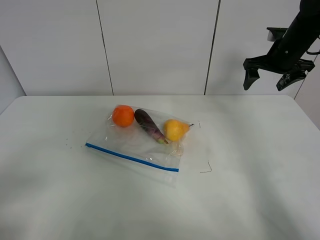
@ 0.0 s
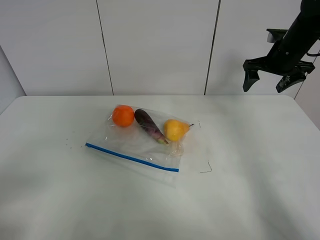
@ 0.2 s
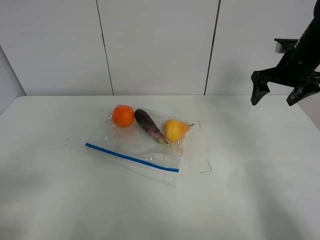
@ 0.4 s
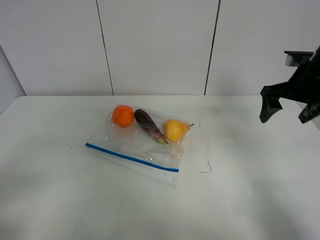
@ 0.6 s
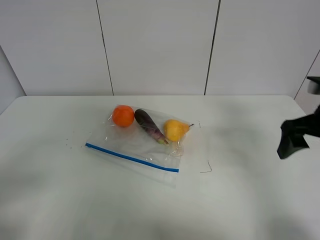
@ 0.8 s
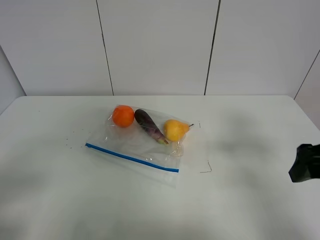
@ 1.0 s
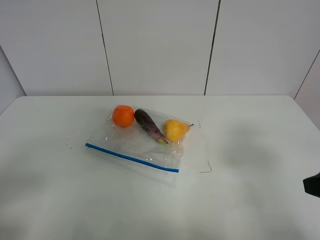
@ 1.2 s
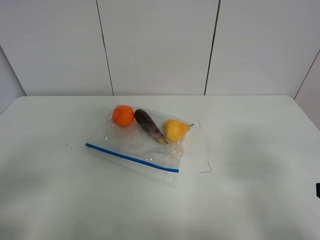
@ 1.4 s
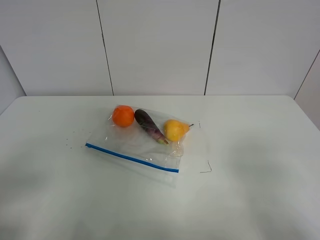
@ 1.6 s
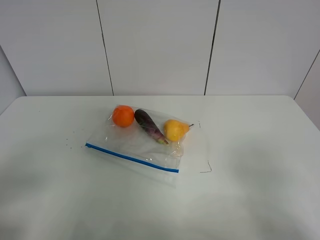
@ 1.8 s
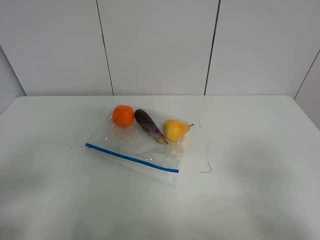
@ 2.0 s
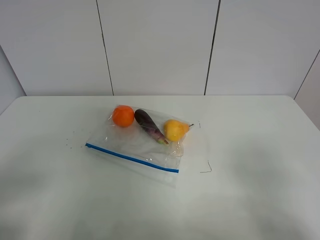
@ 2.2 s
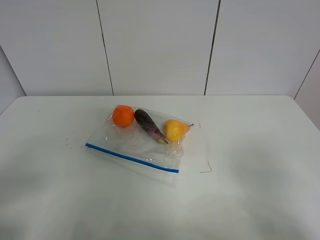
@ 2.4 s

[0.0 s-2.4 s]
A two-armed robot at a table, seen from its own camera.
0.0 to 1.2 s: The right gripper moves backward, about 35 cm.

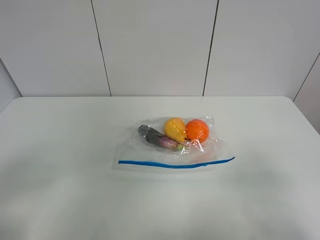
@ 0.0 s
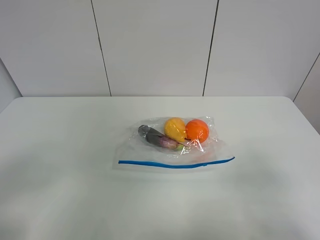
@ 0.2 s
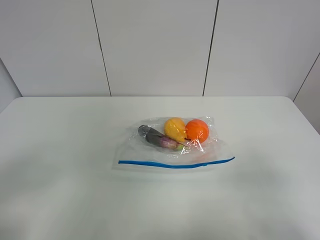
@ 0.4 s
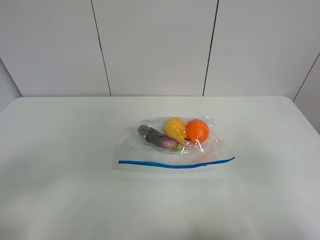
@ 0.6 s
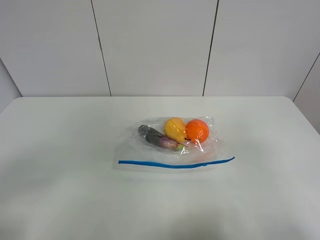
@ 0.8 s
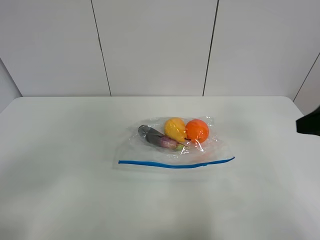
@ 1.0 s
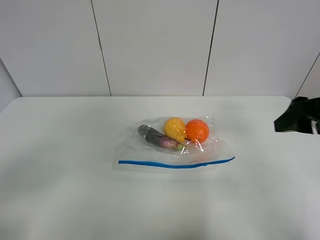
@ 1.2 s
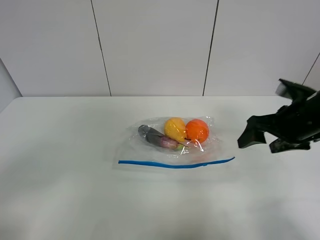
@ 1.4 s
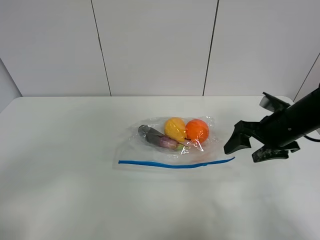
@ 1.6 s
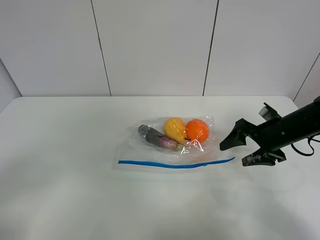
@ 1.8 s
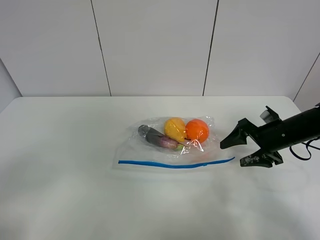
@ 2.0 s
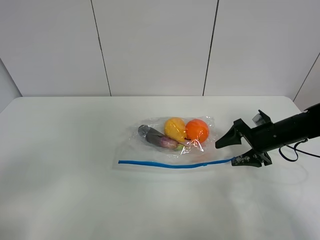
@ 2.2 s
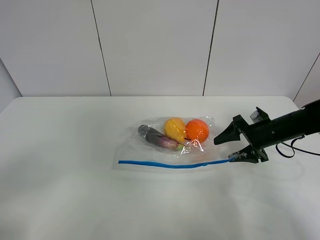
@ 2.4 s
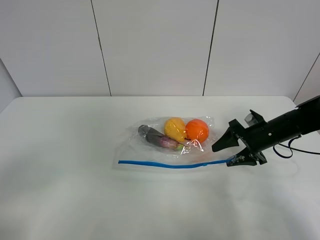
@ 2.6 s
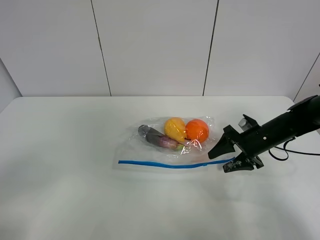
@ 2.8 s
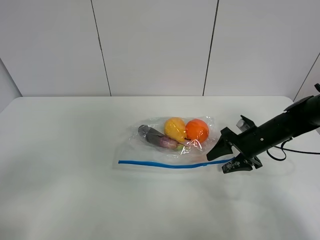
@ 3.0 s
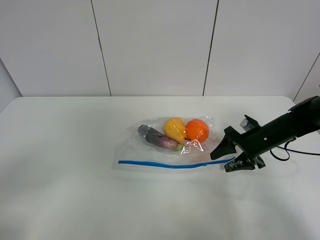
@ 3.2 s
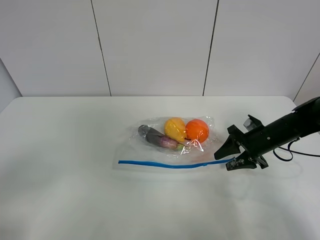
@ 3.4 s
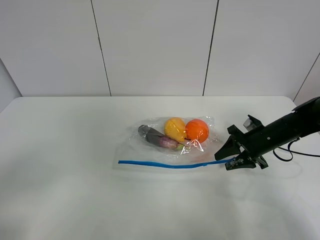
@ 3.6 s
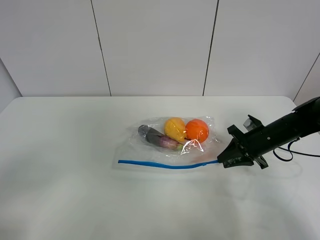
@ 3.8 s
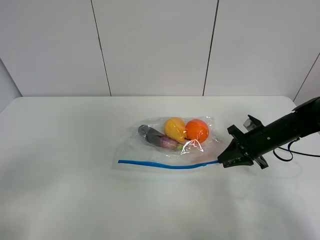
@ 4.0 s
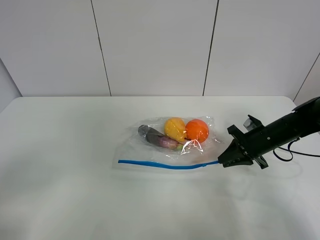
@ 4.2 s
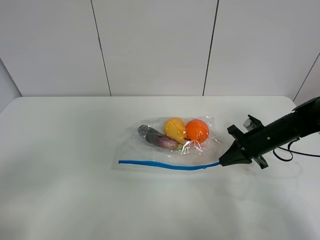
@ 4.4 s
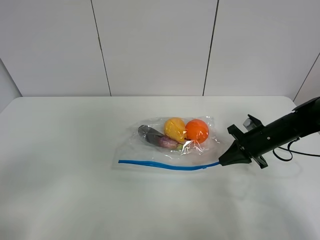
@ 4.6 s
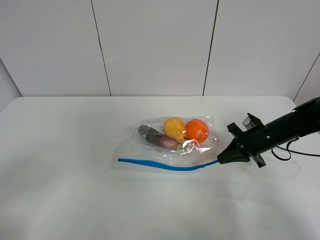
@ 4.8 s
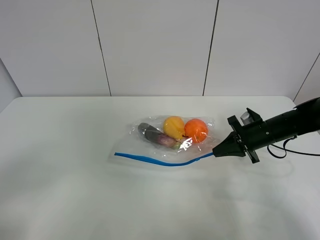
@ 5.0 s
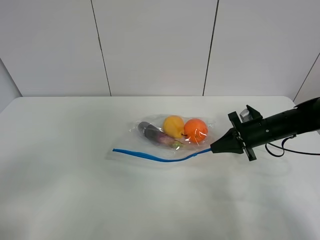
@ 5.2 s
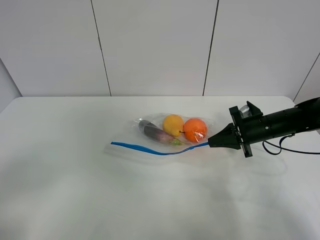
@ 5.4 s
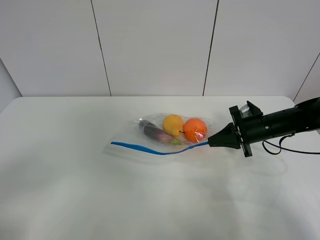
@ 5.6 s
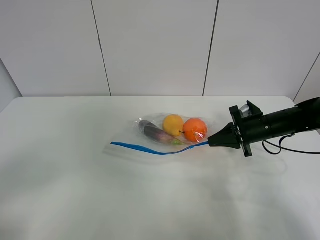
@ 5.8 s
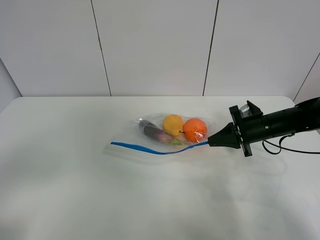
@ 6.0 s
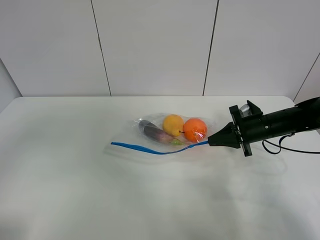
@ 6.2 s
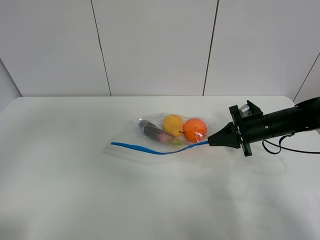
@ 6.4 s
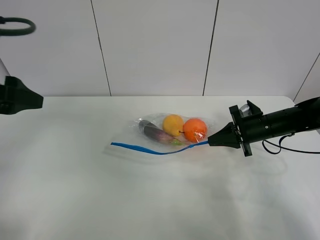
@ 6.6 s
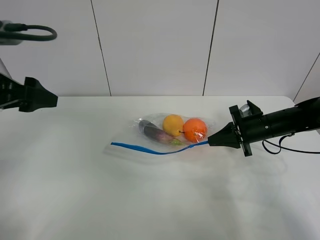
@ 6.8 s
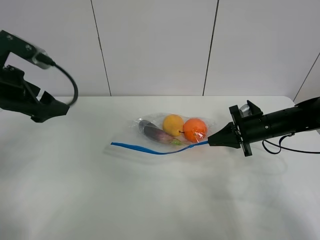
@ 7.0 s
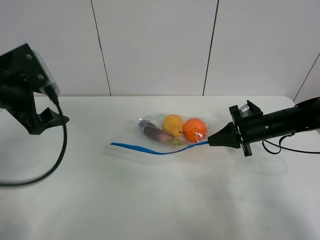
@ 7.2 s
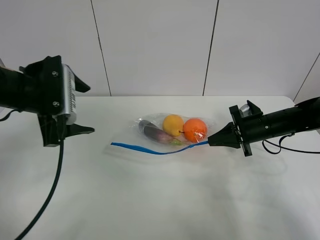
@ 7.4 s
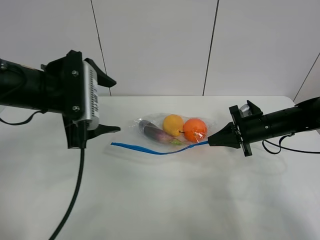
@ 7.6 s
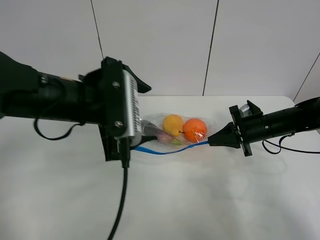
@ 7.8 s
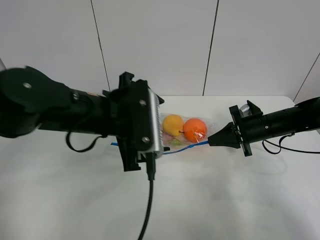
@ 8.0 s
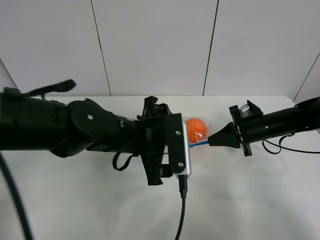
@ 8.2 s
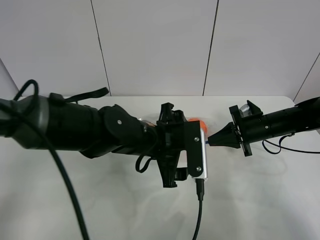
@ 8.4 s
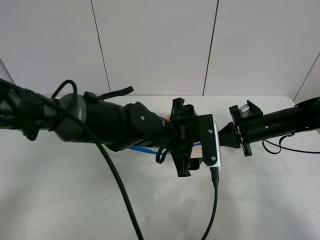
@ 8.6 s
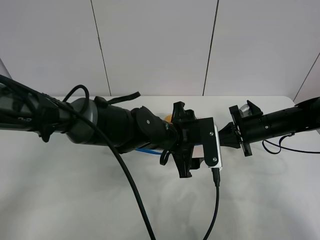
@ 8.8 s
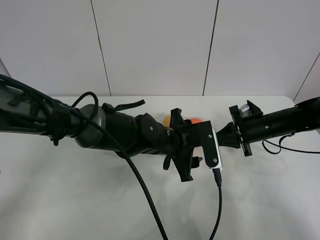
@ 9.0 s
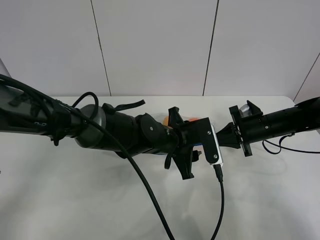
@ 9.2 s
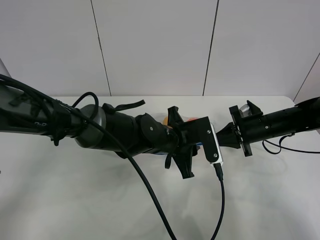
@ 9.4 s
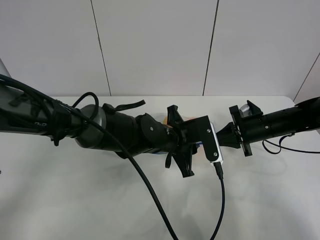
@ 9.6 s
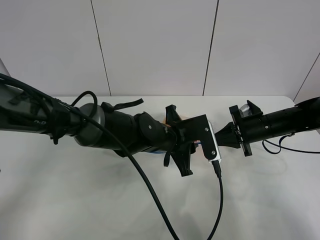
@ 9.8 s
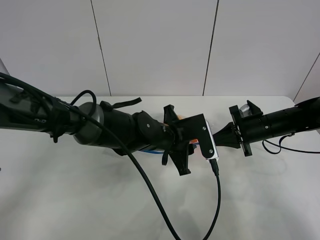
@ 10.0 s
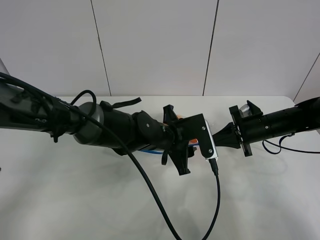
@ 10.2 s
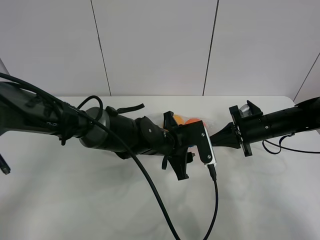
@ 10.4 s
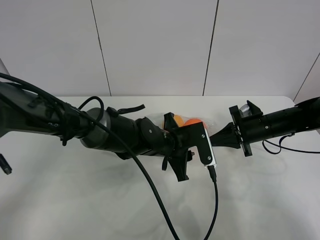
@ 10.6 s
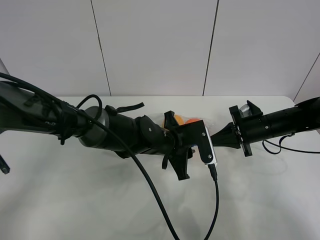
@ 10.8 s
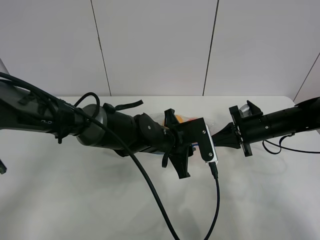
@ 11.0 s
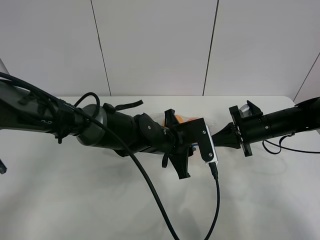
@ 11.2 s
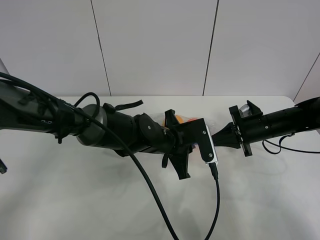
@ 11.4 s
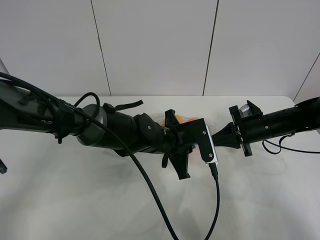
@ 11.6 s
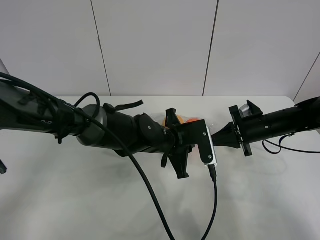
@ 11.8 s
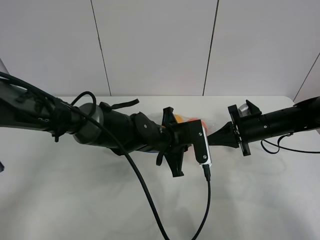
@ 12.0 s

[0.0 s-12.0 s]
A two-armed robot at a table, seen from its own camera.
Step, 0.0 to 4.2 s: Grasp the fruit bag with right gripper.
Step, 4.4 to 5.6 s: Lift the fruit bag with your right gripper.
0.0 to 1.6 s: The right gripper shifts roughly 30 cm forward.
1.6 to 3.0 s: The right gripper goes about 10 cm downward.
3.0 to 4.4 s: The right gripper closes up.
4.4 to 6.0 s: The grippers move only a little.
6.0 to 7.6 s: The left gripper travels forward and to the right by some 25 cm.
7.6 to 9.0 s: The left gripper is displaced to the right and downward by approximately 25 cm.
9.0 to 10.4 s: The grippers make only small movements.
10.4 to 12.0 s: The left gripper closes its fingers.

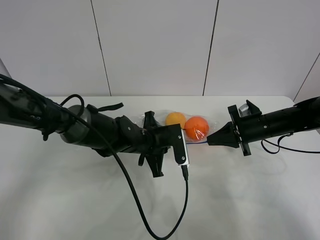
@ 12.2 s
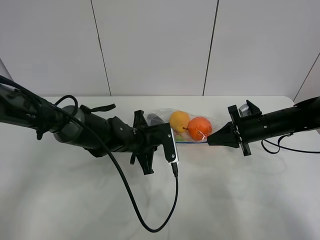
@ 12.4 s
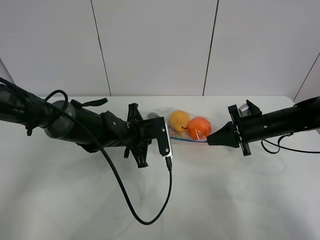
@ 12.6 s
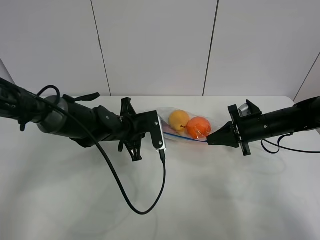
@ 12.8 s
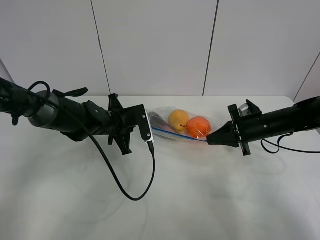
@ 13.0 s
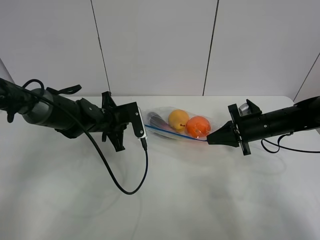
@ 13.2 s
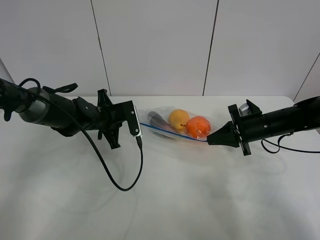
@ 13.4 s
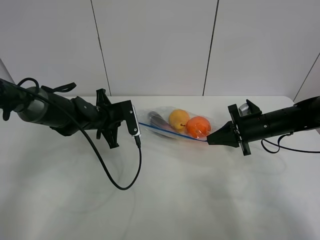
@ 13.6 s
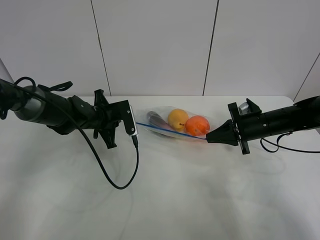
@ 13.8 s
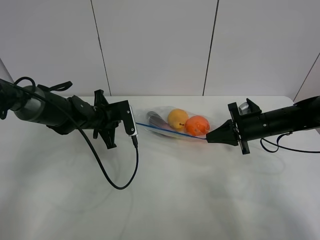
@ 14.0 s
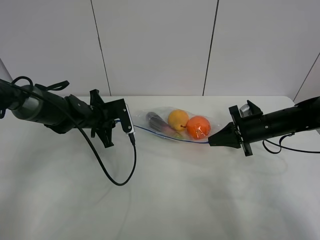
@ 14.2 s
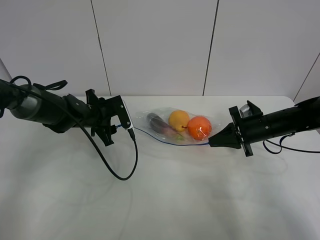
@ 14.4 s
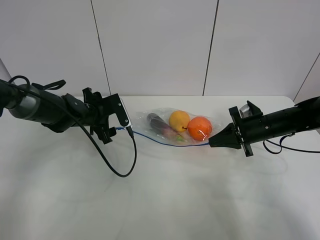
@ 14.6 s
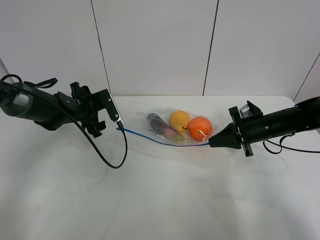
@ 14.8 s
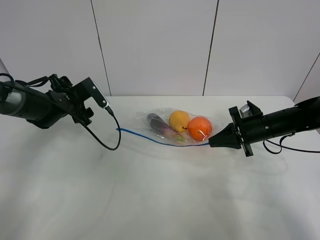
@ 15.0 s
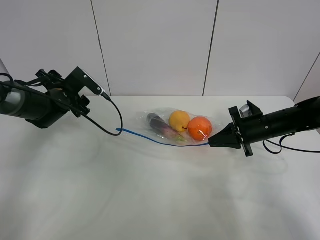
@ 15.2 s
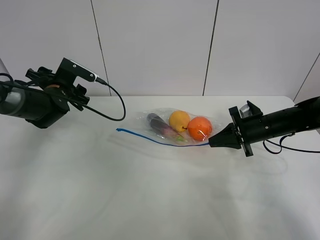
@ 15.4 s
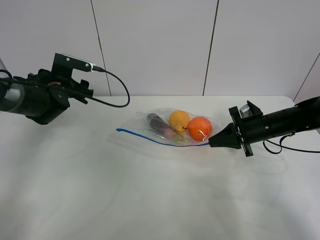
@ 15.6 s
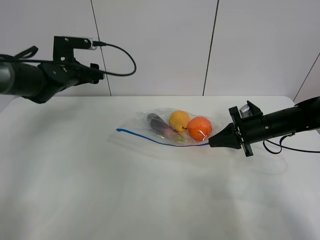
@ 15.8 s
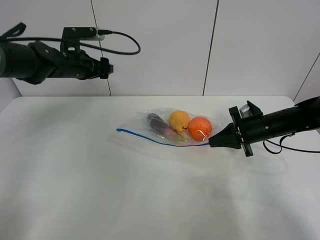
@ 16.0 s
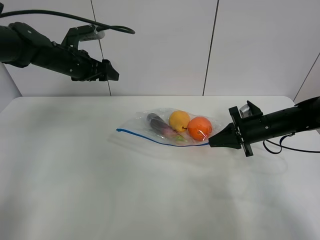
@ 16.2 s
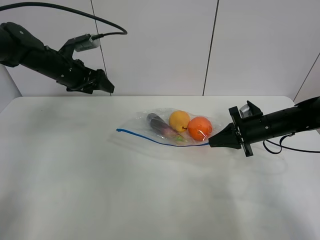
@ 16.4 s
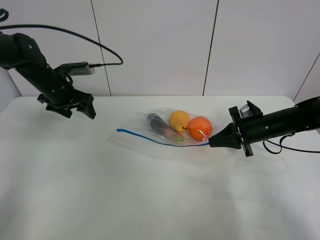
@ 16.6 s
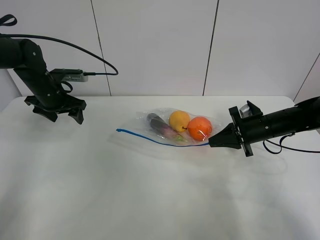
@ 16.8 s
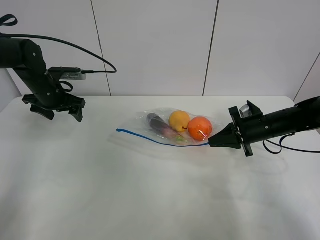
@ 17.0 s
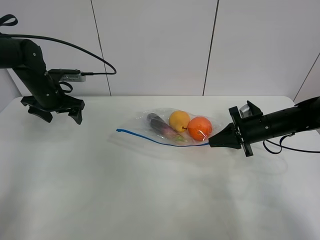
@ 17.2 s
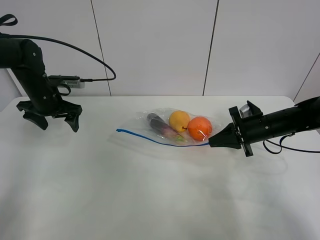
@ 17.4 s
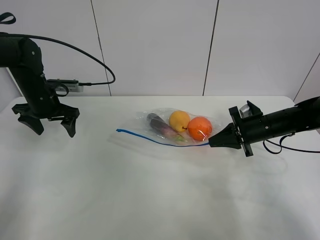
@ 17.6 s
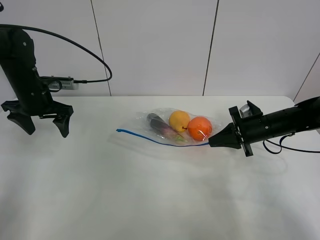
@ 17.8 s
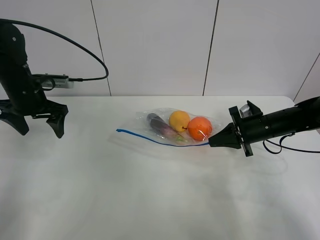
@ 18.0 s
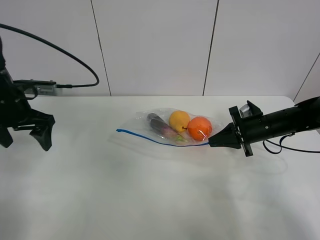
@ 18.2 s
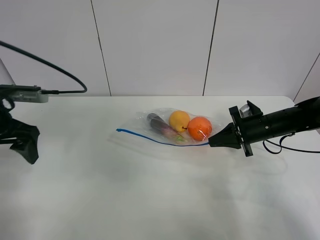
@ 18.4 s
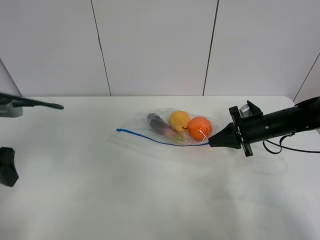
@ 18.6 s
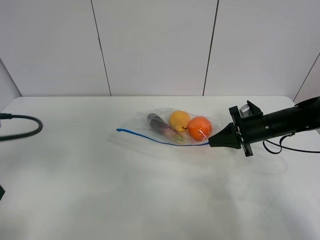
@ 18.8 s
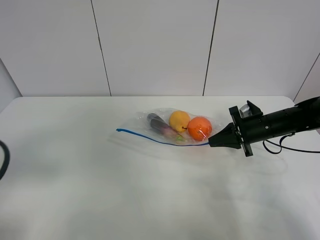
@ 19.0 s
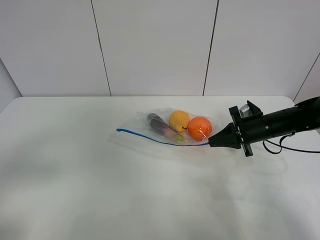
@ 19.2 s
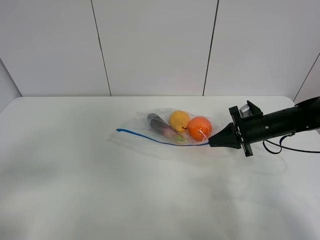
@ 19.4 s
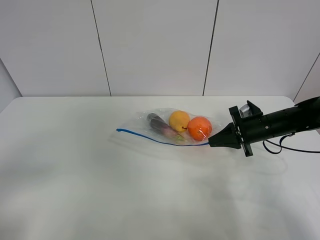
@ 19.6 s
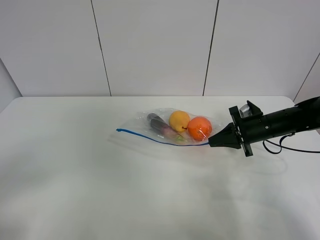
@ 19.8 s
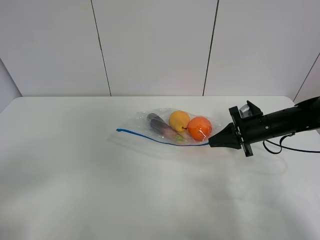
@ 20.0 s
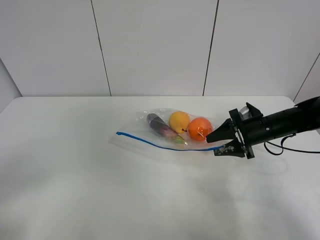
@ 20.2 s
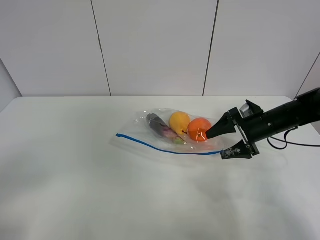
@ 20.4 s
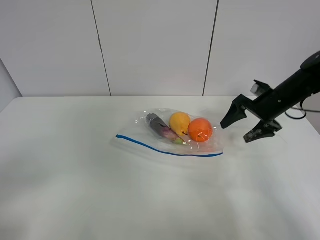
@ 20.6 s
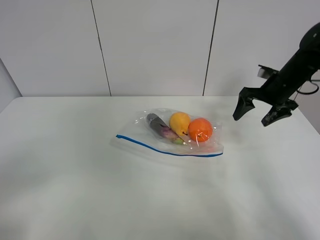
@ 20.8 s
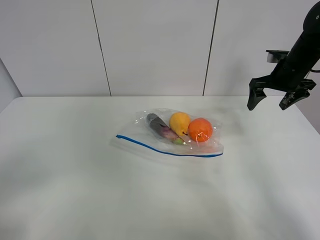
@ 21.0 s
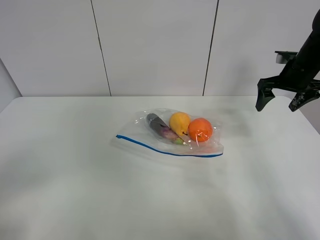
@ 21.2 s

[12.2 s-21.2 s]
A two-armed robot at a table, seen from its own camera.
Step, 12.2 to 14.4 s: Pull the fruit bag with left gripper.
12.2 to 13.8 s: The left gripper shifts roughly 15 cm to the left and forward.
13.8 to 15.2 s: The left gripper heads to the left, covering approximately 10 cm, and opens up.
16.6 to 18.2 s: The left gripper moves backward and upward, about 15 cm.
18.2 to 19.8 s: The left gripper is displaced backward by roughly 30 cm.
19.8 to 21.2 s: The right gripper moves upward, forward and to the right, approximately 15 cm, and opens its fingers.
